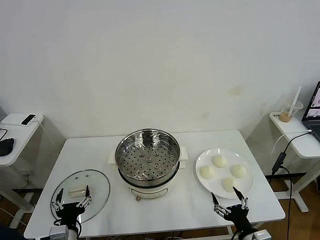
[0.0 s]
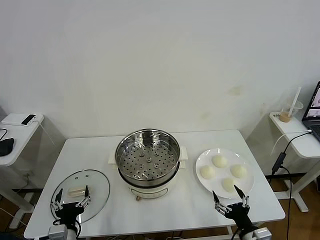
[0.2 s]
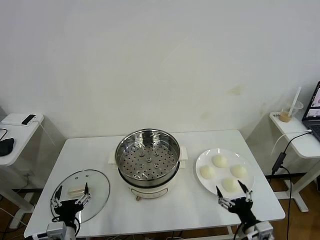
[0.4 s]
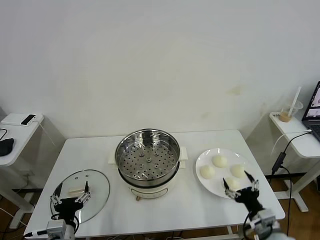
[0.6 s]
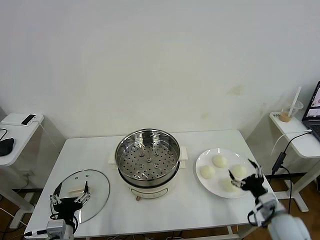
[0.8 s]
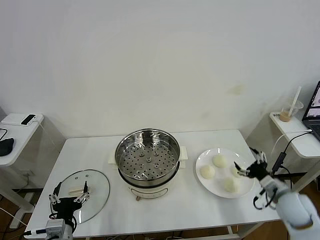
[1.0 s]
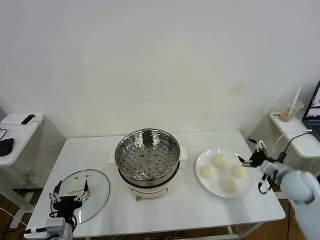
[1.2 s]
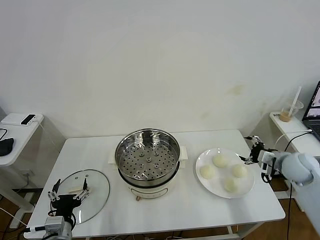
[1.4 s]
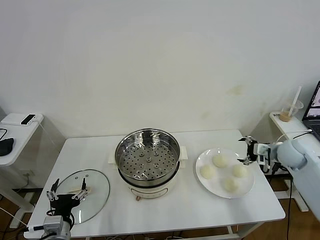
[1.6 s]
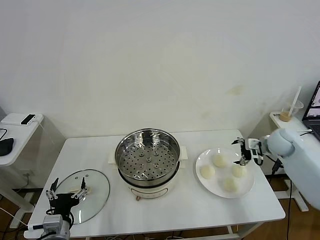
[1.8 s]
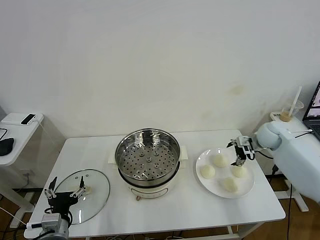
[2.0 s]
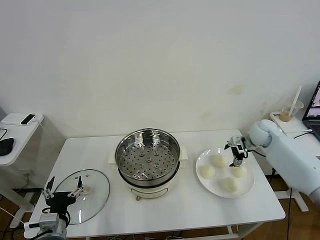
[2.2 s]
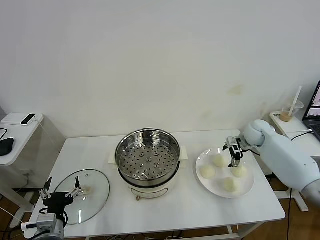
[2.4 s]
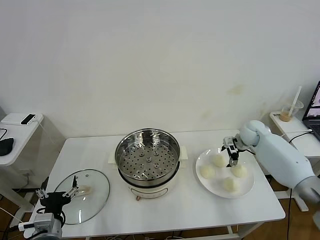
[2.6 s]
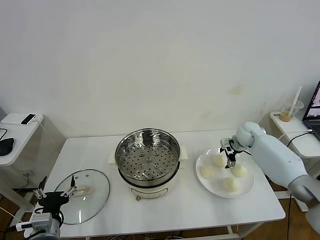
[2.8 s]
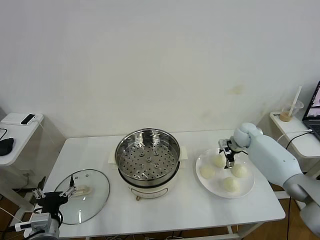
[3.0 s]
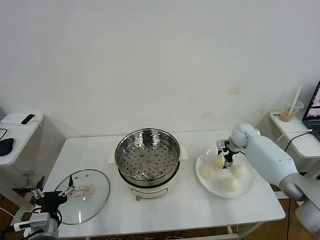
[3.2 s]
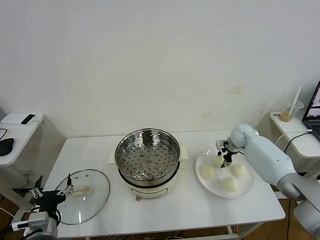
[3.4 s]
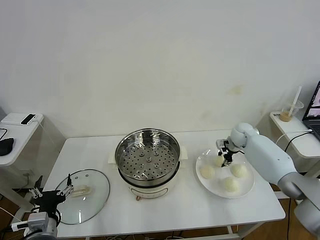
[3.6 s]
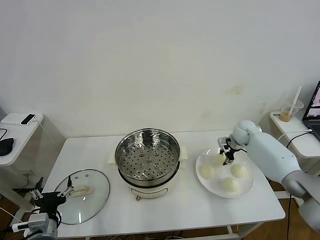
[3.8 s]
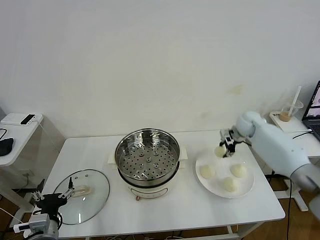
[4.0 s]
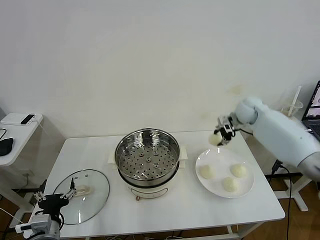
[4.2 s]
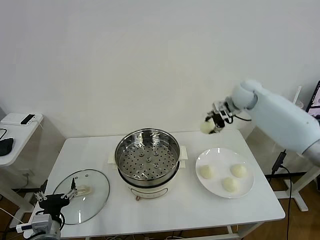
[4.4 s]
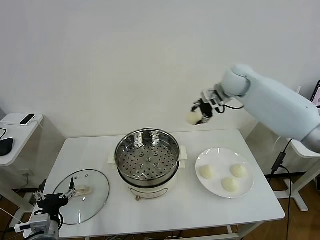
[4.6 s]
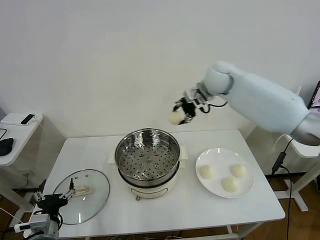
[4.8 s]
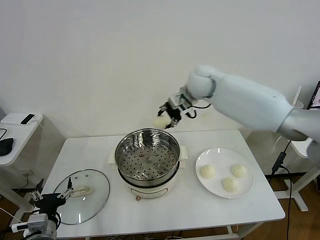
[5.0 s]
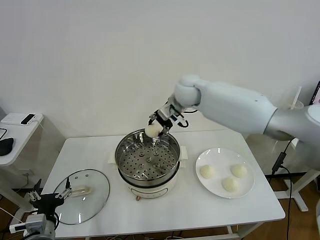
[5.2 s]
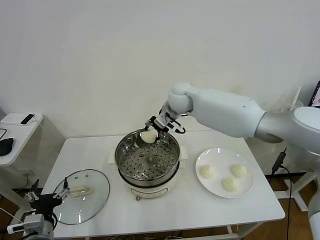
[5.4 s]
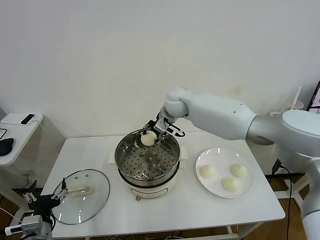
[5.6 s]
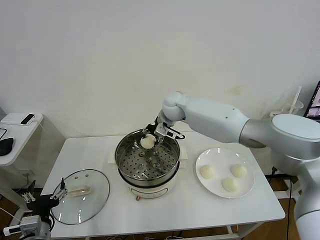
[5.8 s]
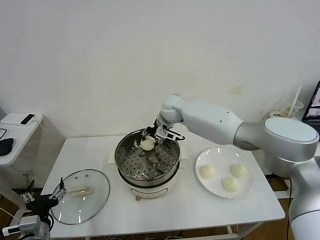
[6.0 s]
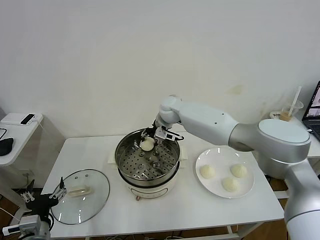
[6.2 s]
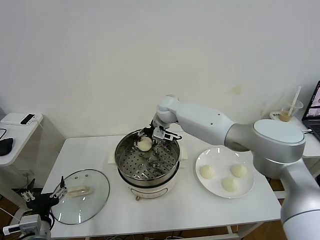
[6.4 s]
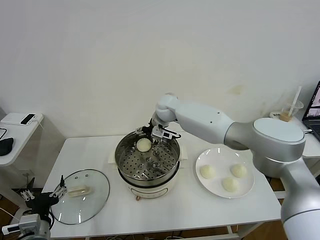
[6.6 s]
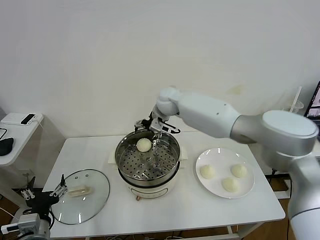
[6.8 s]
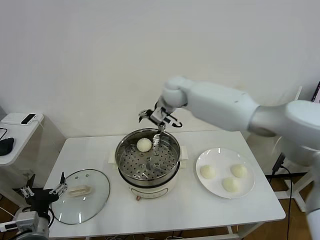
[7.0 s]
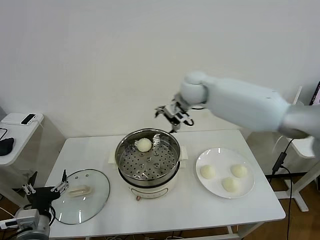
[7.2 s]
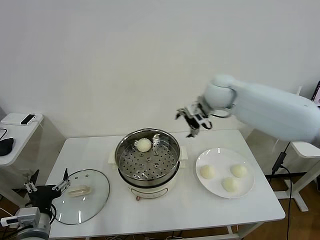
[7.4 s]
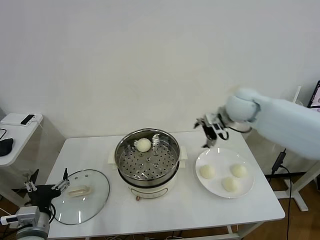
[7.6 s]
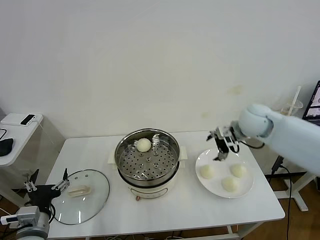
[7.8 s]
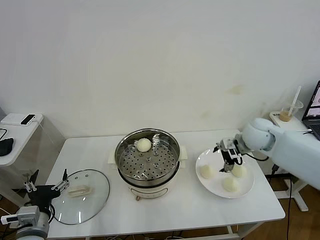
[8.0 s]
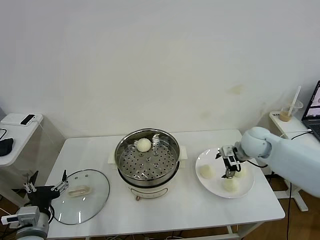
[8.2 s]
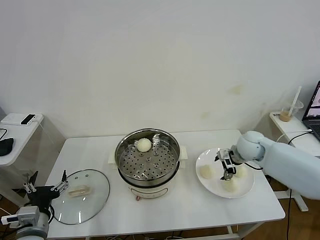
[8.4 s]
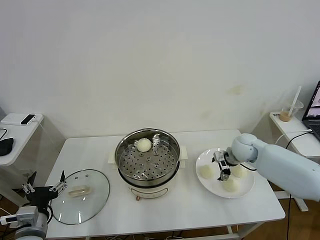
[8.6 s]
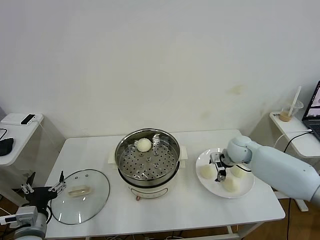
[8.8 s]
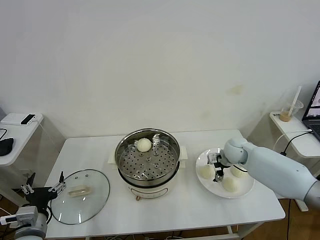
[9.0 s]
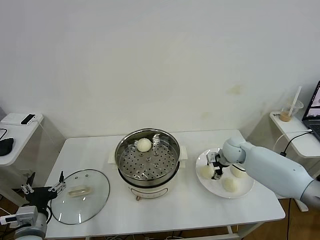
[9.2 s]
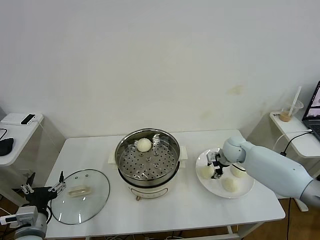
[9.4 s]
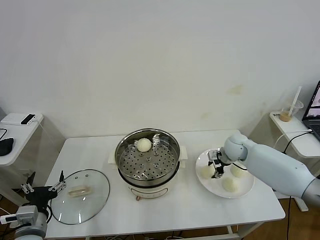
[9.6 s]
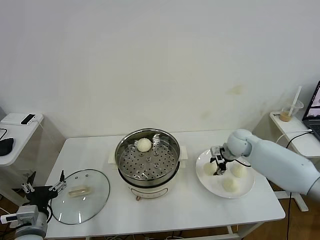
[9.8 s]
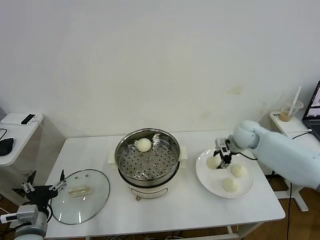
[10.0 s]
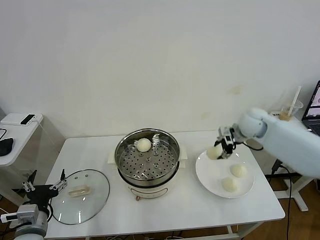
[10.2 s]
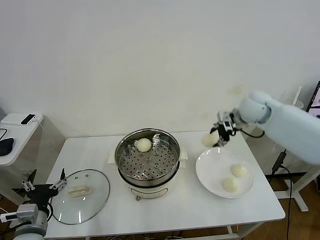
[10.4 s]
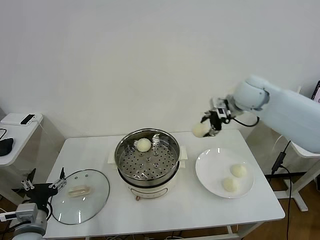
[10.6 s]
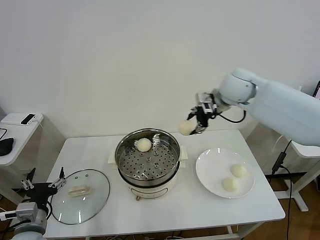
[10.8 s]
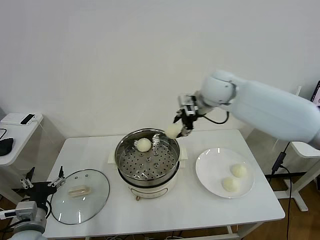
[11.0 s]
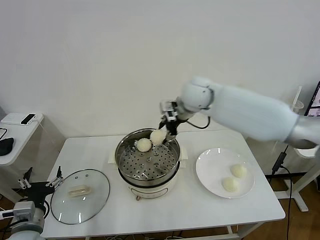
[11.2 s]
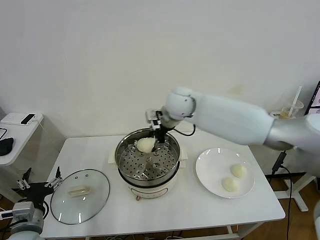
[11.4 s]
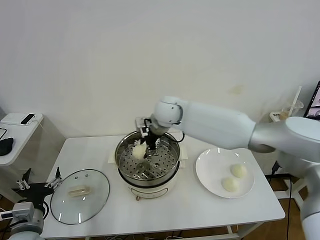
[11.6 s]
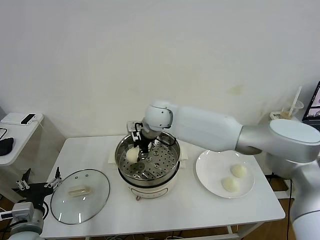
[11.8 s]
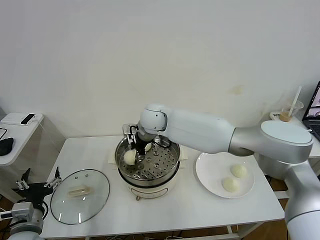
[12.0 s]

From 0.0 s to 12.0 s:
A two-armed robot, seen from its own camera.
Task of the whole recording: take steamed baozi put them in steamer then cover it.
Step, from 0.0 s to 3.4 s: Grasp the baozi in the plate with right gripper.
Step, from 3.6 s to 6.6 s: Place the baozi on the steamer with right gripper.
Step, from 6.8 s to 9.4 s: Grasp the baozi in the plate with right gripper.
From 1.6 s to 3.0 s: The right gripper shifts approximately 15 cm forward, to the left and downward.
From 3.0 s to 4.4 s: The right gripper moves upward, some 25 cm, and closes up.
From 4.4 s to 6.0 s: The right gripper goes about 25 cm to the left and downward.
From 6.0 s to 7.6 s: The right gripper goes roughly 25 cm to the right and backward, and opens up.
From 7.6 s to 9.0 s: The right gripper heads downward, covering roughly 20 cm.
From 9.0 s to 10.4 s: The right gripper travels upward by about 20 cm, and closes up.
From 10.4 s to 12.0 s: The right gripper is displaced to the left by about 30 cm.

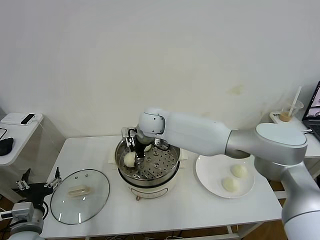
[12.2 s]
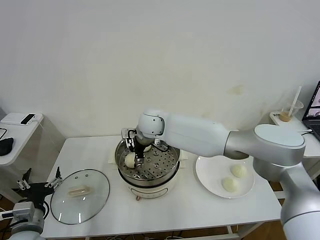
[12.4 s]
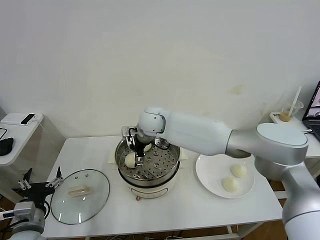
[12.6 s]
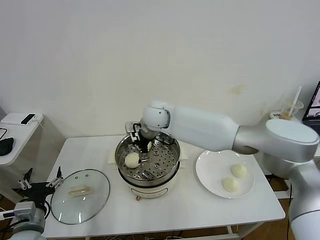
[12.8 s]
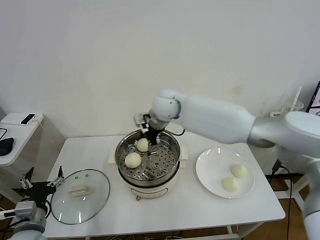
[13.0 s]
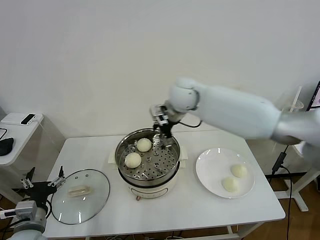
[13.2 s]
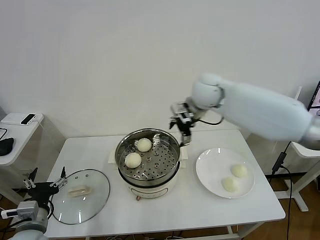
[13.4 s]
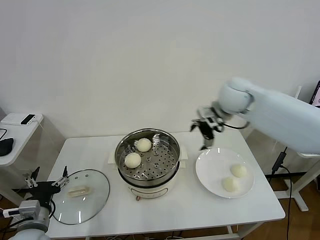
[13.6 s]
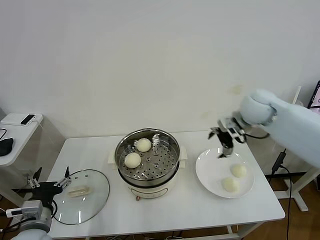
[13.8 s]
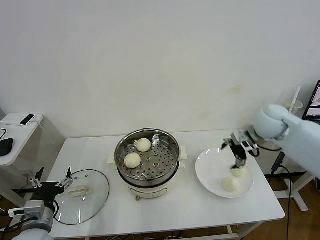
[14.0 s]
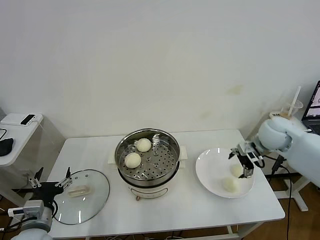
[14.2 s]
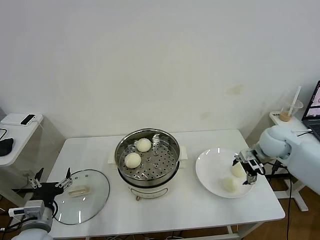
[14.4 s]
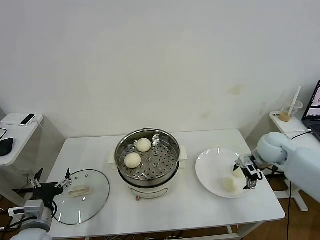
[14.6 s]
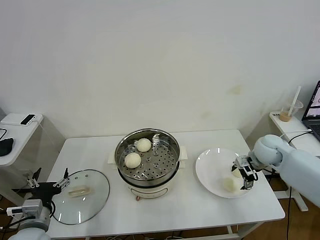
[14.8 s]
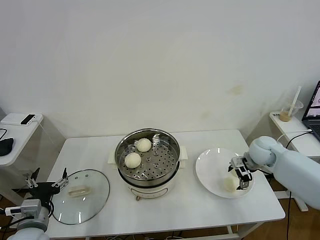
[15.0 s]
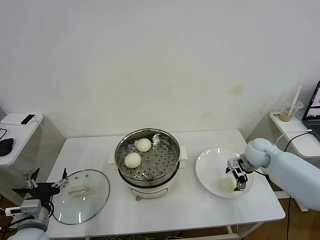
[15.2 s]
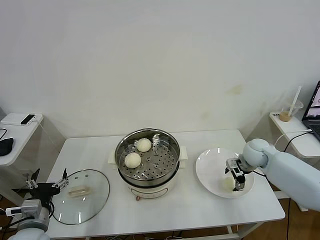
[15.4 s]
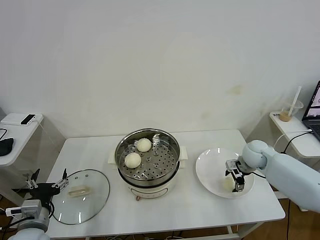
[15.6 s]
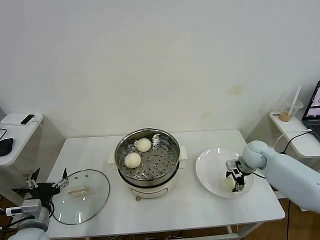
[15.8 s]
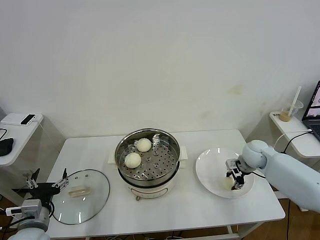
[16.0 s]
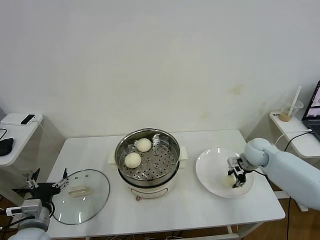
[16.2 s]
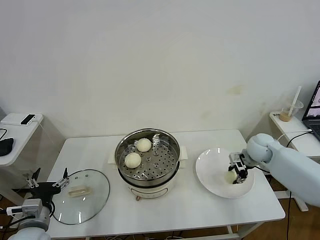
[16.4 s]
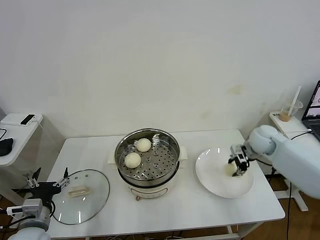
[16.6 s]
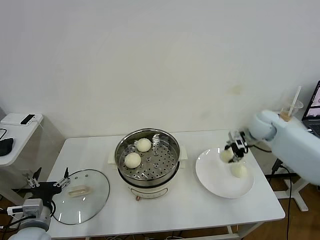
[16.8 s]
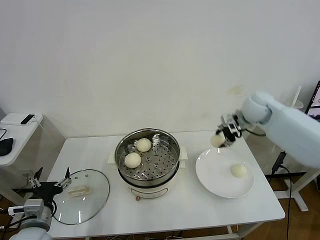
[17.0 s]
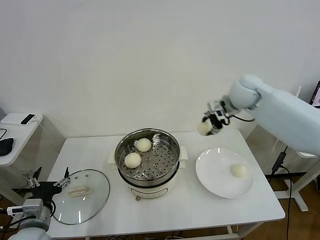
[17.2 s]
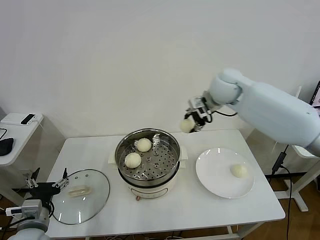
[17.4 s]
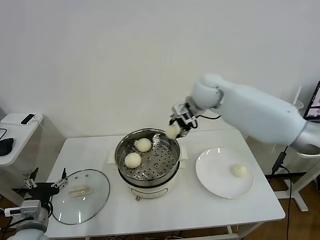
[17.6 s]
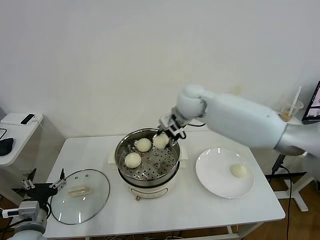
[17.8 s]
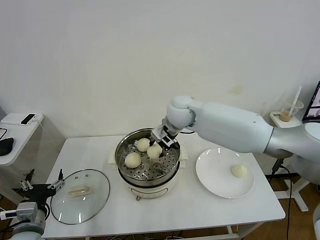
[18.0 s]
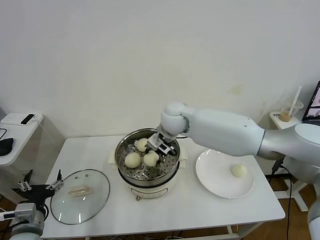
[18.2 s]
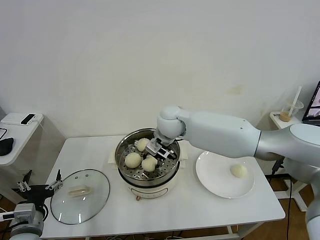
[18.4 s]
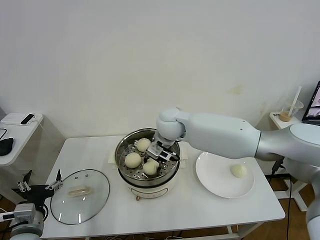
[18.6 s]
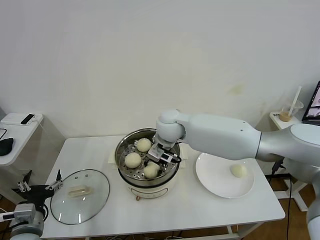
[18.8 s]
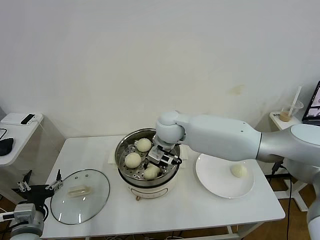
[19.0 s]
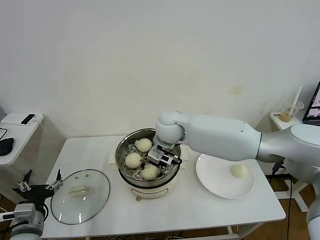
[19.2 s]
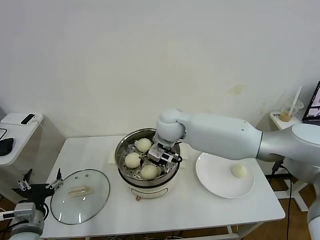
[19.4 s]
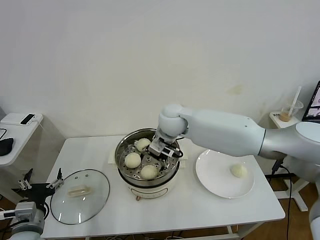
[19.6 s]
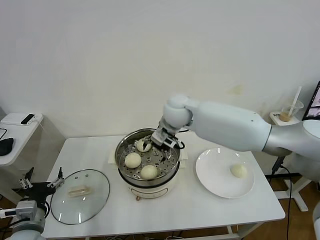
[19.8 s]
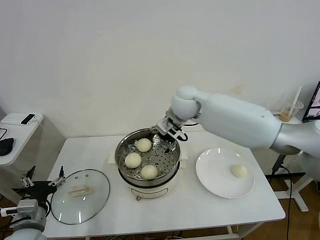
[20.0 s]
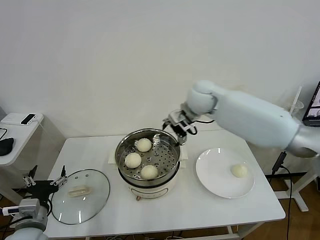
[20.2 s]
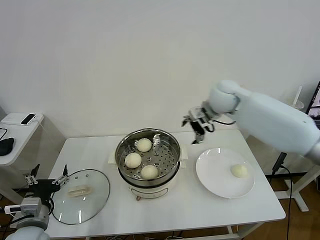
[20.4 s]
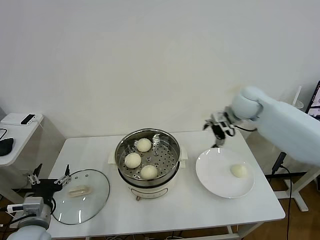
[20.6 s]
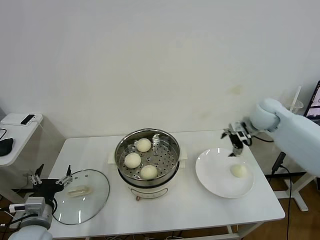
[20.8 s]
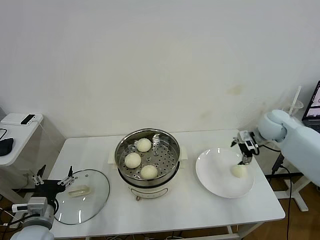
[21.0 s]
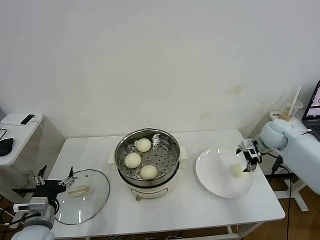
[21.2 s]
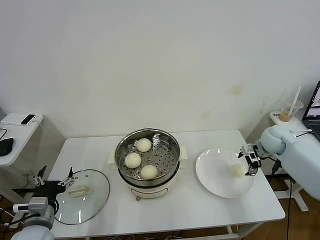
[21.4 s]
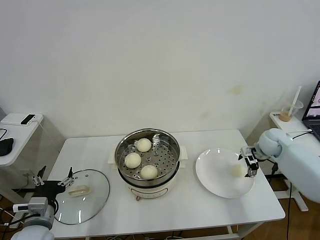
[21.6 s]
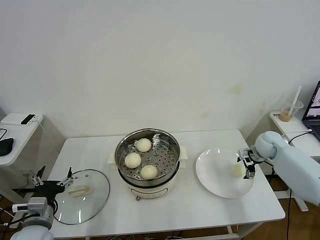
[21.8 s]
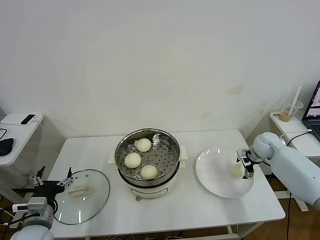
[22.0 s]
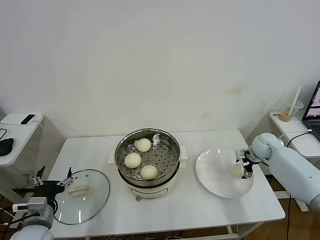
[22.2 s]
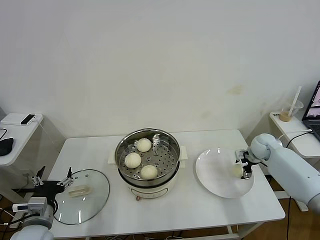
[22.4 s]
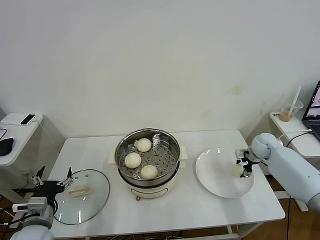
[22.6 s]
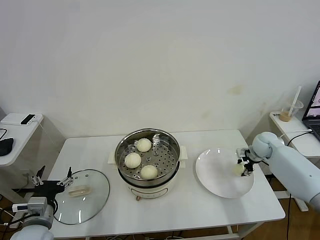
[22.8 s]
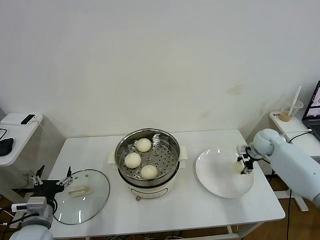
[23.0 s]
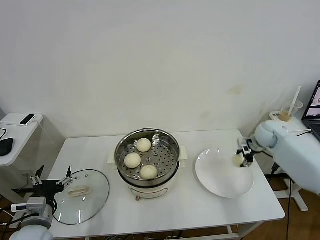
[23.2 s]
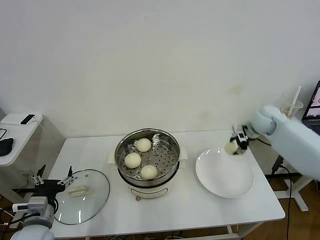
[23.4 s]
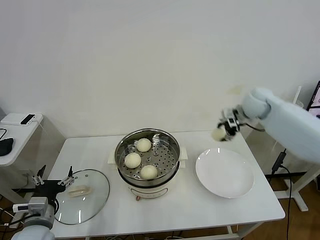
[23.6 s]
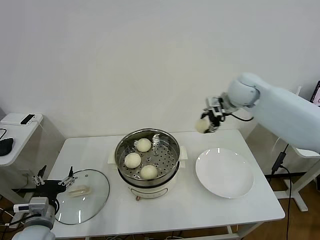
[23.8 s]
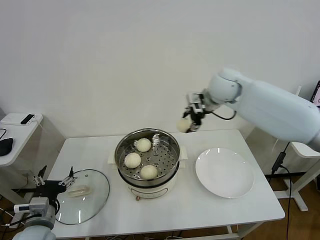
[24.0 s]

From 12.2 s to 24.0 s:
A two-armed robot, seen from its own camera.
Task of the whole recording: take steamed baozi put them in steamer then cover it.
Step, from 13.0 s to 15.8 s: Grasp the baozi in the plate with right gripper.
Step, from 16.2 s to 19.4 s: Place the baozi on the steamer with right gripper.
Step, from 19.8 s to 22.6 s: Grasp the baozi in the plate with right gripper.
From 12.2 s to 13.6 s: The right gripper shifts about 25 cm to the right, and opens.
From 13.6 s to 15.2 s: The right gripper travels downward and to the right by approximately 25 cm.
From 15.2 s to 16.6 s: The right gripper is displaced upward by some 5 cm, and closes.
From 16.6 s to 18.2 s: The right gripper shifts roughly 30 cm to the left.
From 18.2 s to 19.6 s: The right gripper opens.
From 19.6 s to 21.0 s: The right gripper moves to the right, roughly 35 cm.
From 21.0 s to 22.6 s: The right gripper travels downward by approximately 15 cm, and closes its fingers.
From 22.6 s to 24.0 s: The right gripper heads upward and to the left, covering roughly 35 cm.
